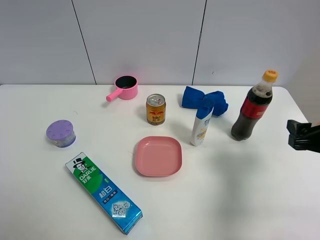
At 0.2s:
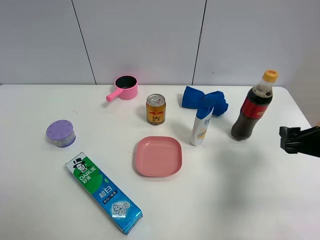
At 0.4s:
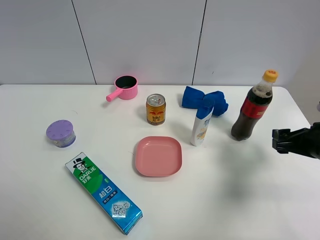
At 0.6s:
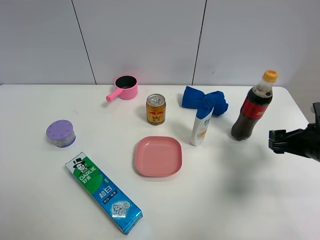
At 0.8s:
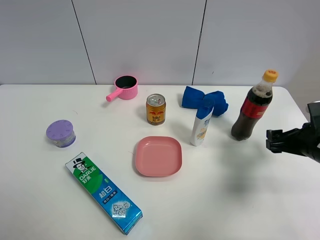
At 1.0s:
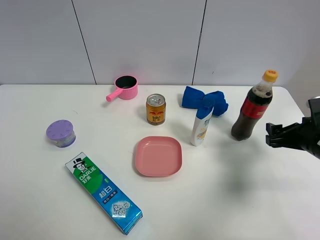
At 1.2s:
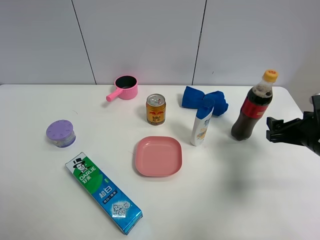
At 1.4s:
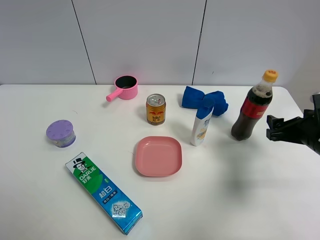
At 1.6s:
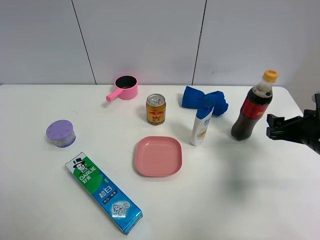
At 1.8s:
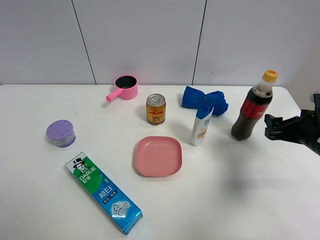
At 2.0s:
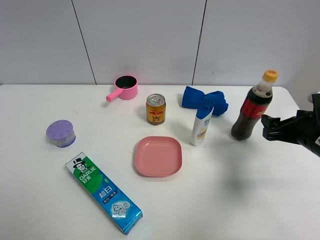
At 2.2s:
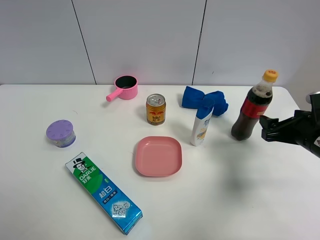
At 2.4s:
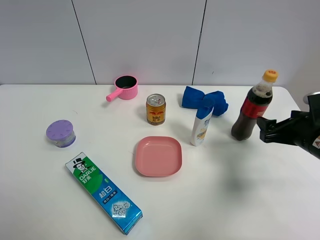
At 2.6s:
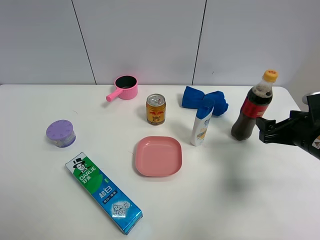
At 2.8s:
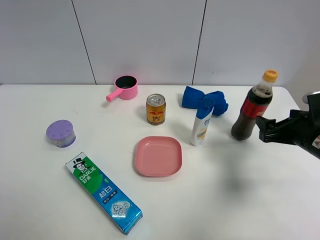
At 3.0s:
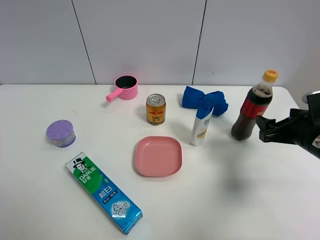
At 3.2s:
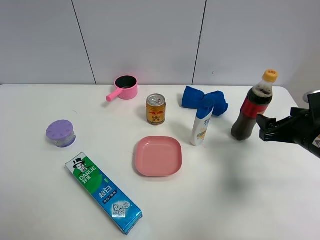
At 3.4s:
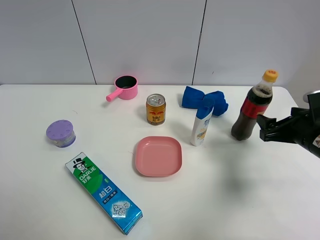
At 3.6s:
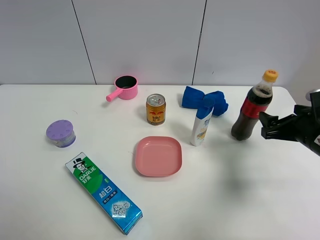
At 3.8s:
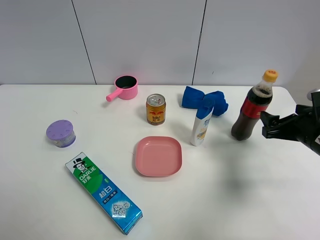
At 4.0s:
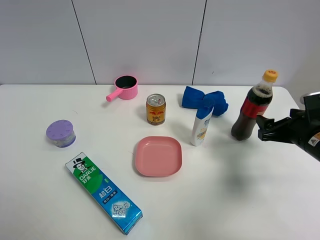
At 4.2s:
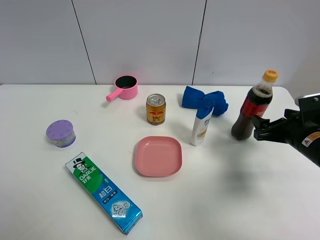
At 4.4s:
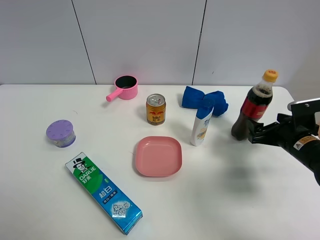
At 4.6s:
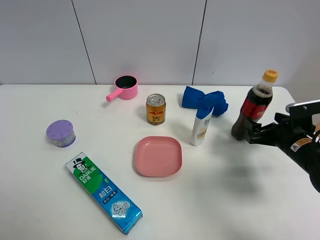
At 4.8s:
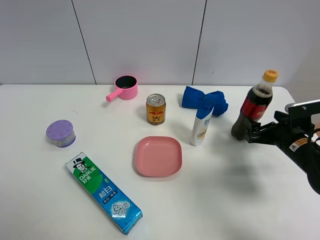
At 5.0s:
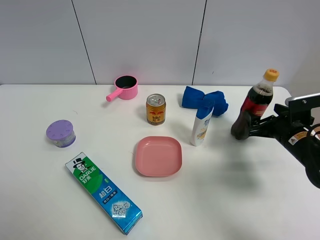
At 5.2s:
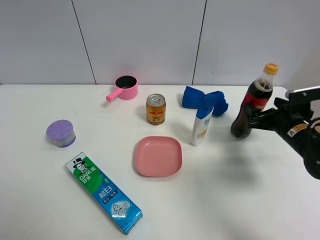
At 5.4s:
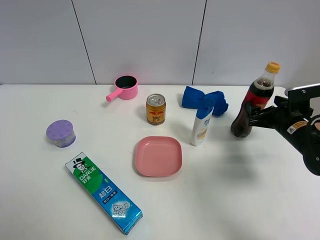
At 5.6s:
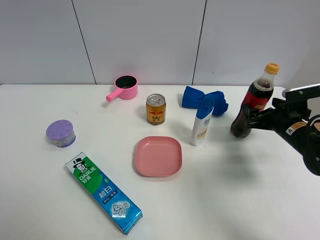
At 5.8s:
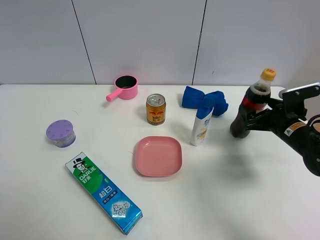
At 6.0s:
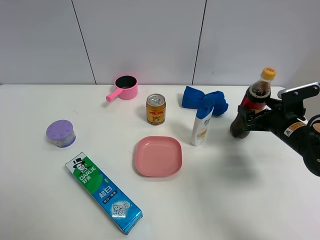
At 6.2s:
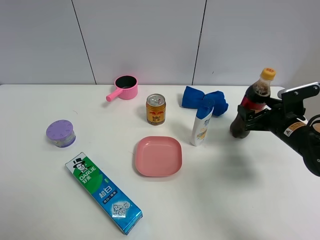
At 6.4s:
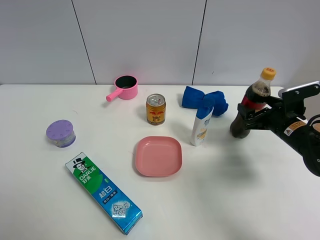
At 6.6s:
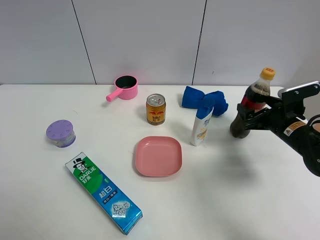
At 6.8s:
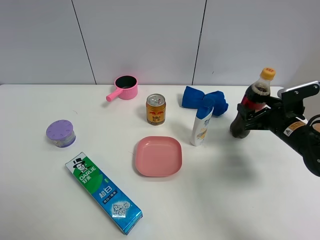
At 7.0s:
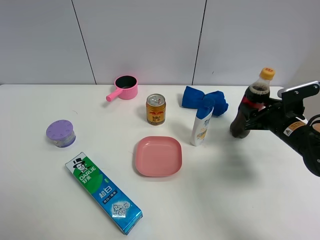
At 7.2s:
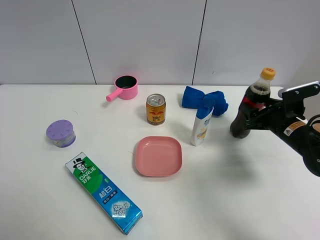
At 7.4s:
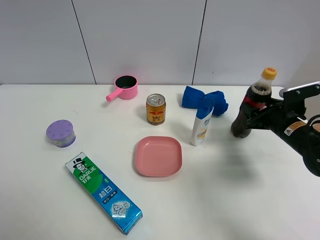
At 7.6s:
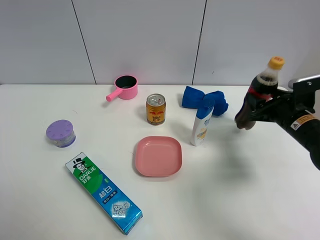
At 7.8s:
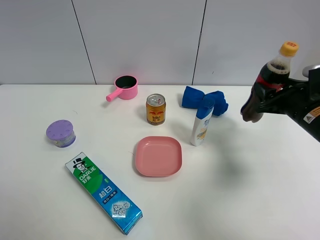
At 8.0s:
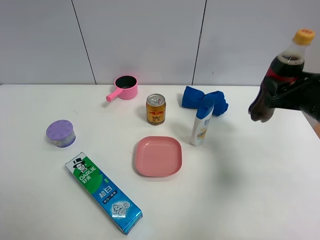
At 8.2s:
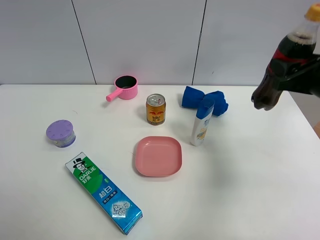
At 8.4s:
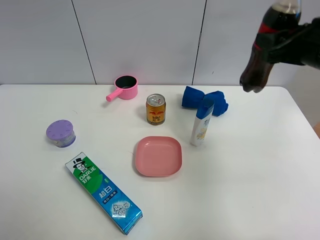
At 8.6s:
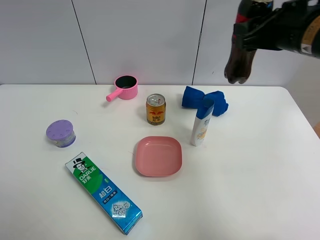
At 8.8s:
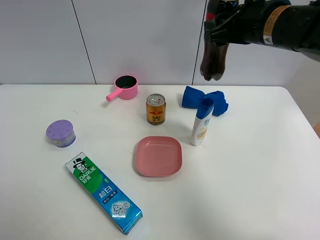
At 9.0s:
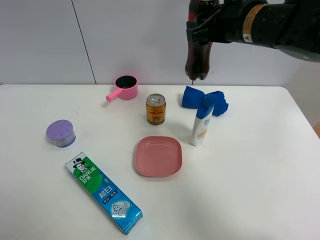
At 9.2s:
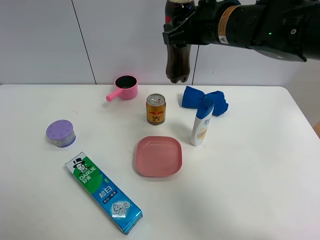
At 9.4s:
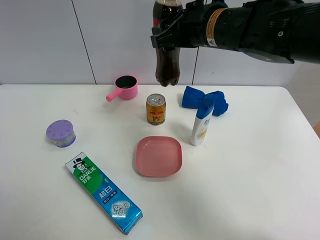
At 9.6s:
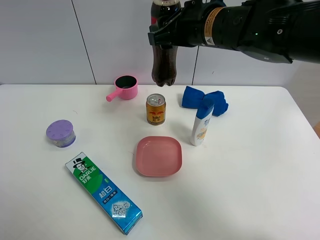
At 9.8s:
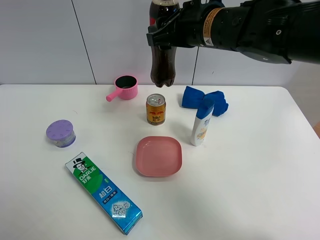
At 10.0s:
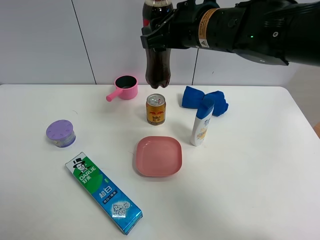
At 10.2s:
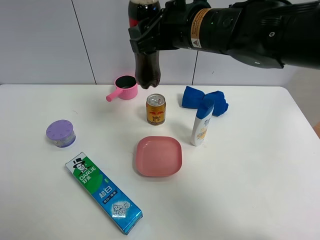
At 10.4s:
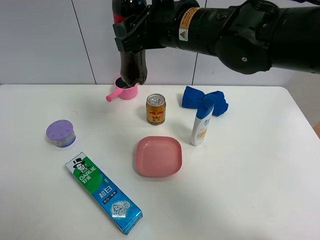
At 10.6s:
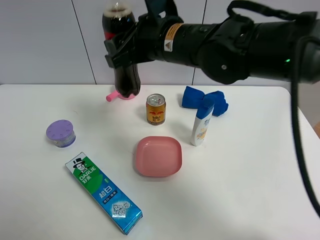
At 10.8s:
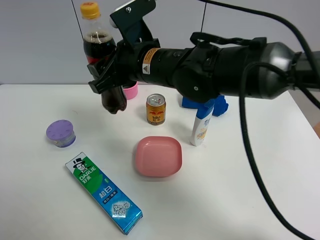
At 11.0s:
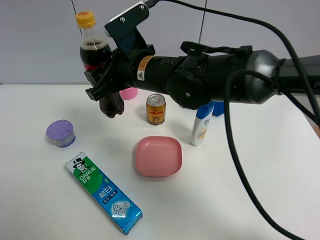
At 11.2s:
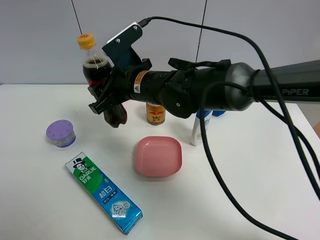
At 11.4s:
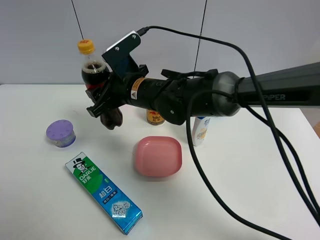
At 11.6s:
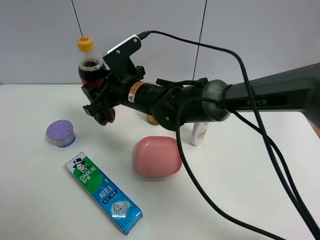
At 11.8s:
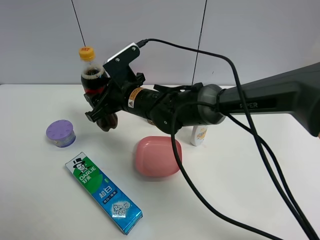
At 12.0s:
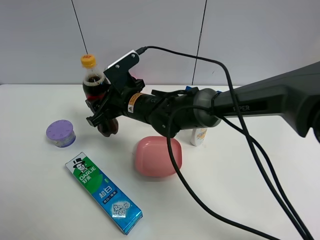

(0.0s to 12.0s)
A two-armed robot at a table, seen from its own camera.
Task of the whole recording: the gripper move the object.
Step, 0.0s - 7.0s: Grasp the coke with the right gripper.
0.0s - 1.6s: The right gripper travels forward by roughly 5 cm.
1.6s - 3.0s: The grippers move only a little.
3.0s - 4.4s: The right gripper moves downward, about 5 cm.
4.4s - 6.0s: The grippers make only small movements.
6.0s - 7.6s: The right gripper closes up.
7.6s - 9.0s: The right gripper moves upward and to the left, about 25 cm.
9.0s - 10.4s: The right gripper heads to the left, covering about 10 cm.
10.4s - 12.0s: The right gripper moves downward and to the left, roughly 20 cm.

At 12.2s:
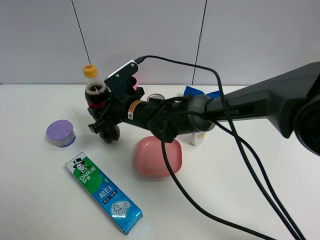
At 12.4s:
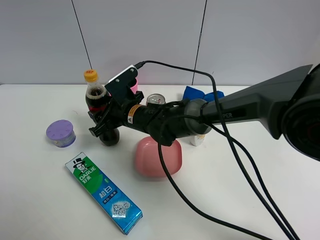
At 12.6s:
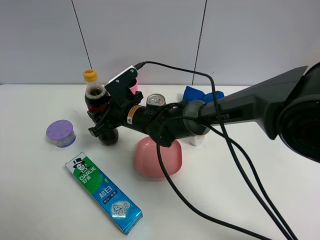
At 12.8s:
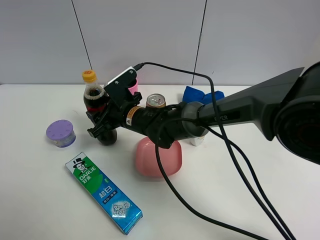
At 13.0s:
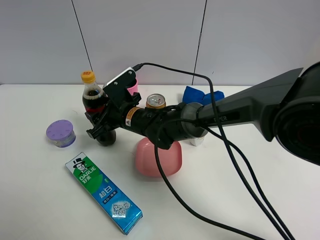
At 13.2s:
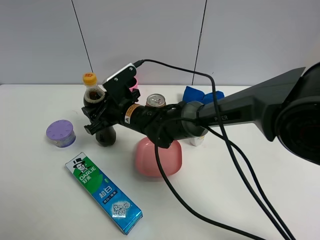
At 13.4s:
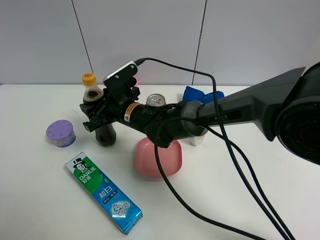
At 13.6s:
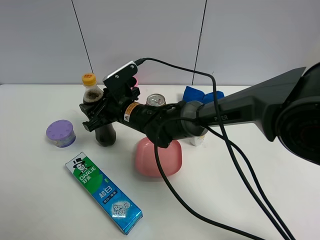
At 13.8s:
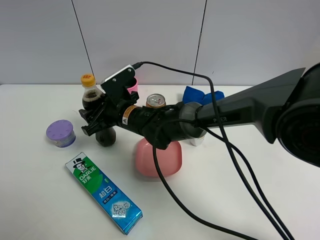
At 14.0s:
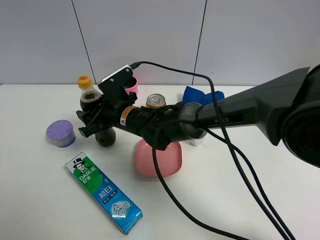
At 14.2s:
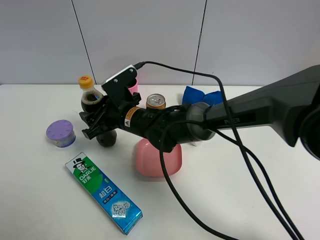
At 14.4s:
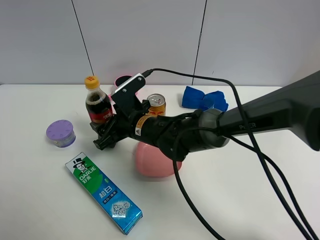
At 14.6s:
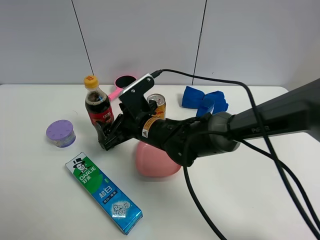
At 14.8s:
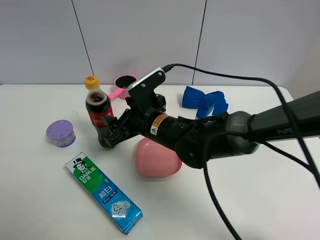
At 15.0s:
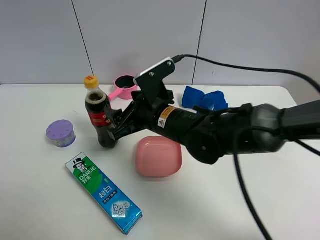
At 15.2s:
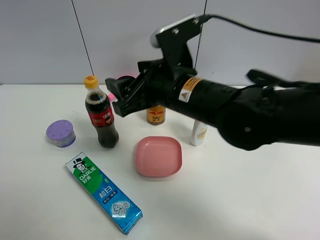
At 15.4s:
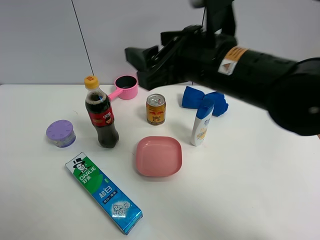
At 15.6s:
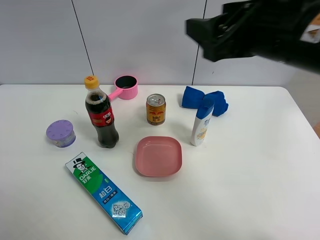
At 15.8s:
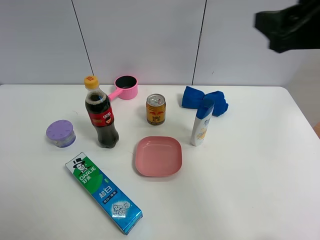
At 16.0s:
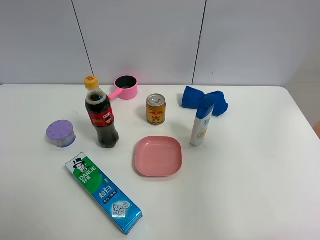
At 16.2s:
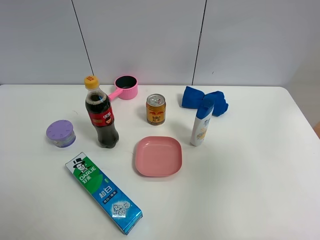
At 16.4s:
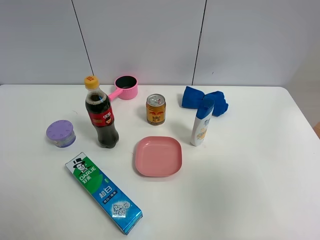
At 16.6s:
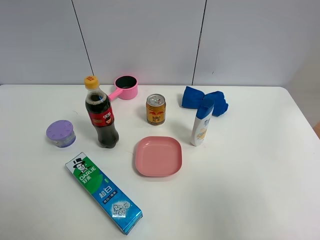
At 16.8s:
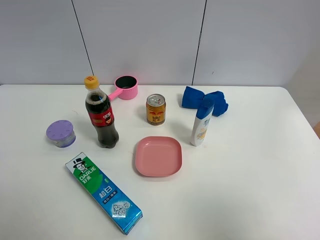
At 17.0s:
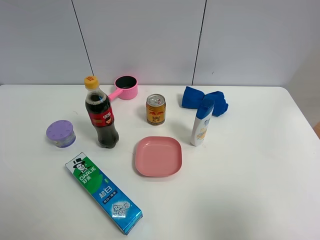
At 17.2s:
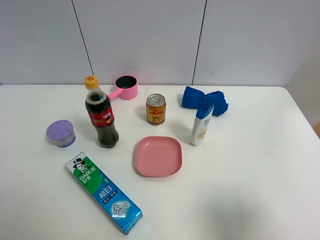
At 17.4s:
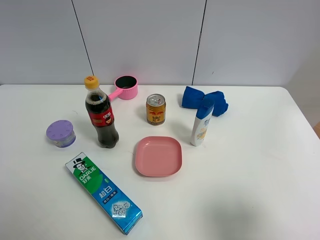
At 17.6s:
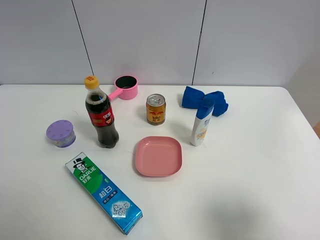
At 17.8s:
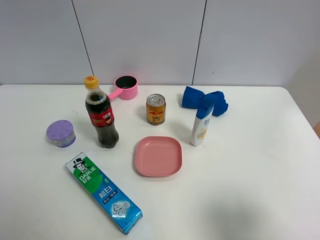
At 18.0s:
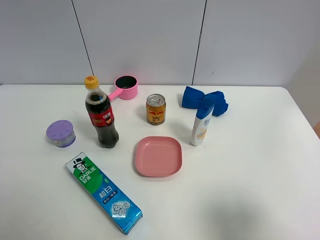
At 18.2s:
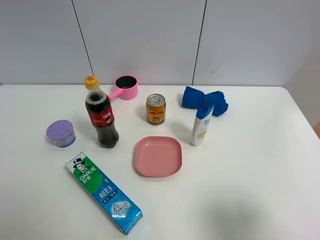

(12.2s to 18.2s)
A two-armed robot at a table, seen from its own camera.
Task of the whole recording: the gripper move the object.
Step, 12.2s - 14.2s: Place the coke on the table with the right gripper.
12.2s - 13.8s: The right gripper opens its fingers.
13.8s - 15.2s: The right gripper travels upward, to the right and backward by about 20 cm.
15.2s - 16.6s: The right gripper travels to the right and backward by roughly 35 cm.
16.6s - 18.2s: The right gripper goes roughly 10 cm downward.

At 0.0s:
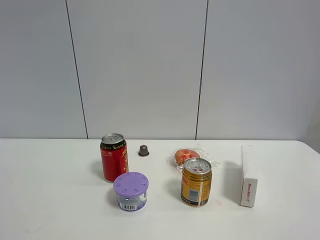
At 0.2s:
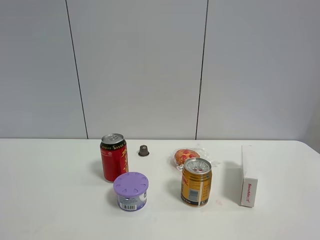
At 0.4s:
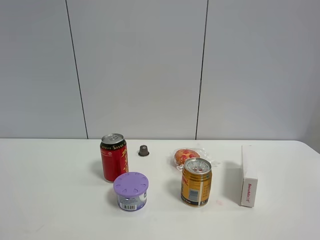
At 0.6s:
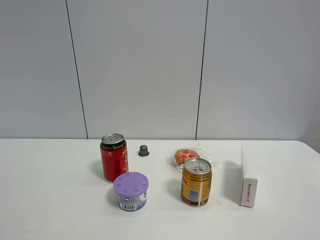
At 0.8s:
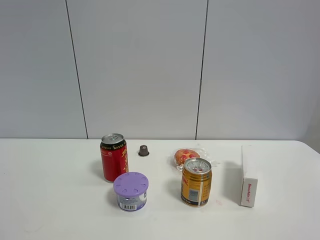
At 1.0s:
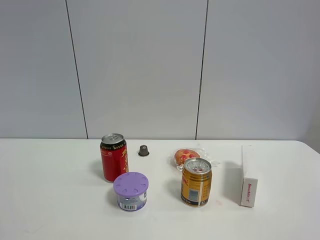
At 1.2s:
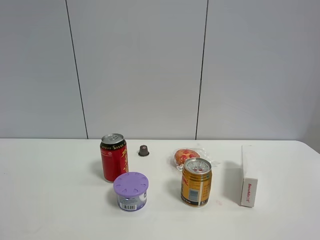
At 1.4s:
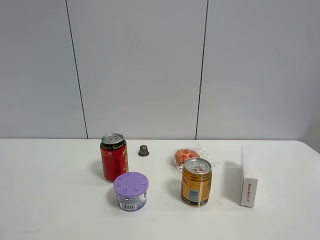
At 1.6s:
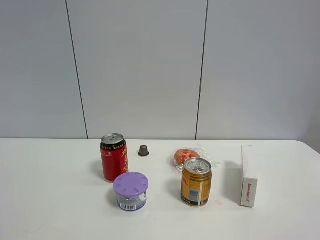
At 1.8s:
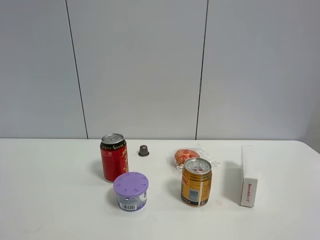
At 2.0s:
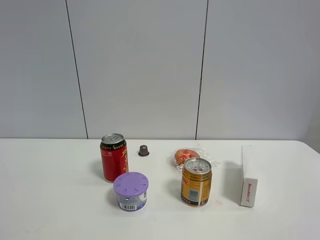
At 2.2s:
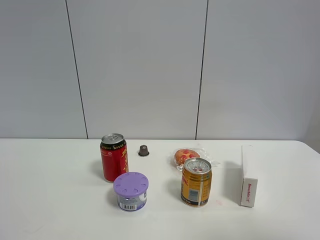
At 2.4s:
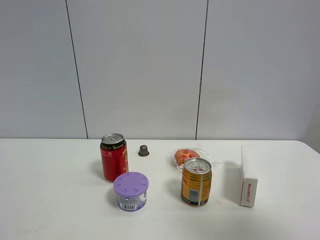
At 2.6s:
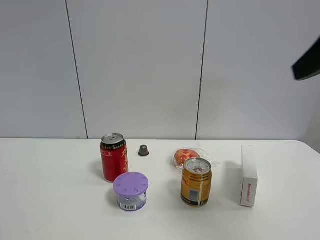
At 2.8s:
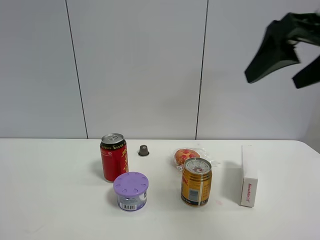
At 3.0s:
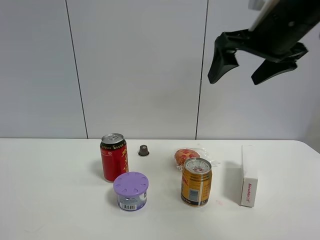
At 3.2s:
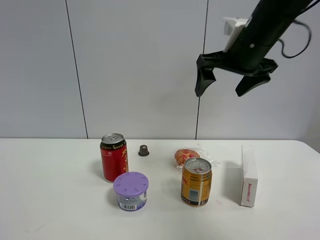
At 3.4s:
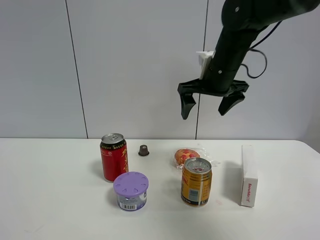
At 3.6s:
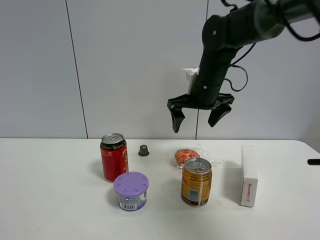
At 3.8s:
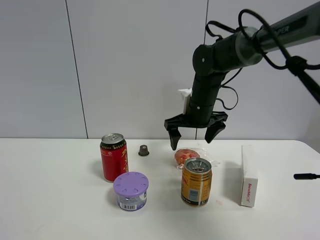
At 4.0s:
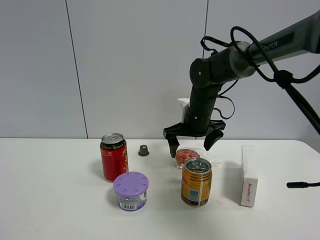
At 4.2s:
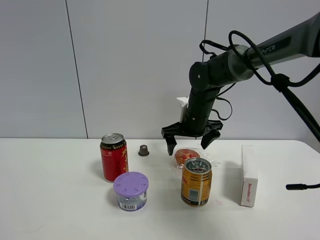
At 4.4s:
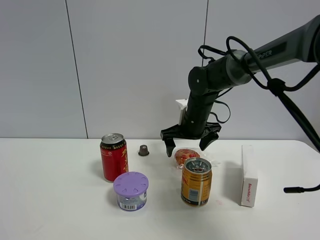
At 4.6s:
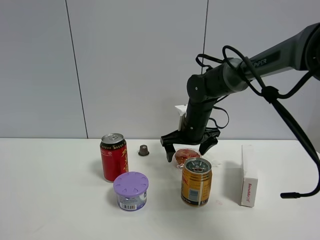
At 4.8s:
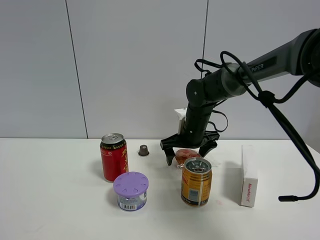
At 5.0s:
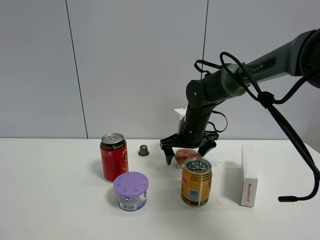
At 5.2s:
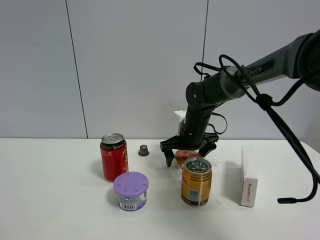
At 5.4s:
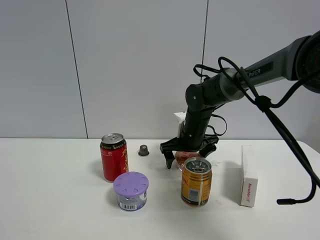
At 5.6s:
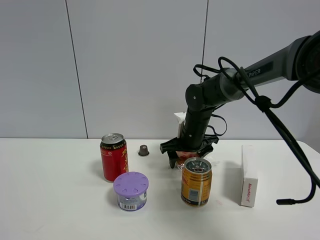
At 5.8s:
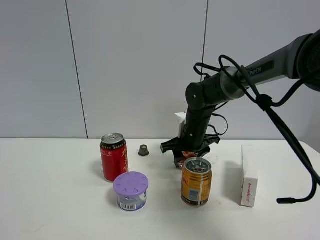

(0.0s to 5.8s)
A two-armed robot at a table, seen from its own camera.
Task of the whole recording: the gripper move the object.
Step, 0.0s - 5.6s: Grasp the egg tart with the right gripper.
0.0s - 1.4s: Neither gripper changes place.
1.4s - 2.8s: The right gripper moves forward, approximately 25 cm.
2.8s - 4.4s: The right gripper is displaced forward, downward and to the left by about 35 cm.
4.4s - 5.8s: The right gripper closes up.
